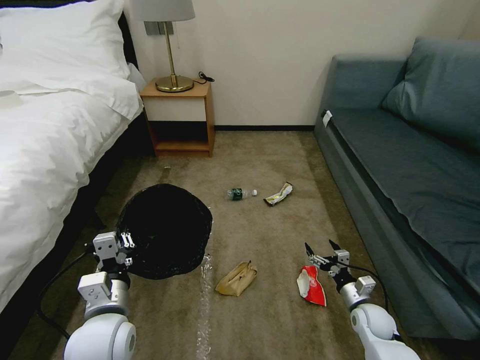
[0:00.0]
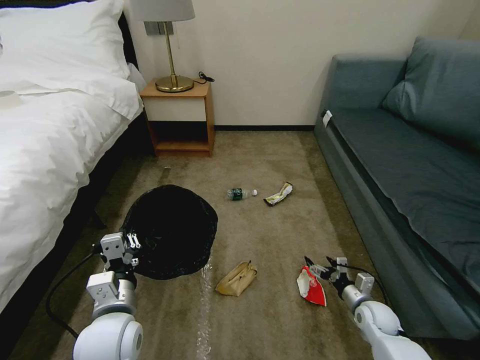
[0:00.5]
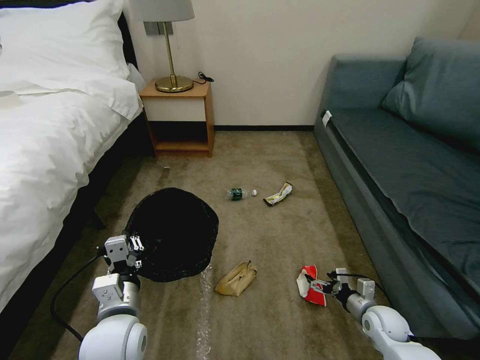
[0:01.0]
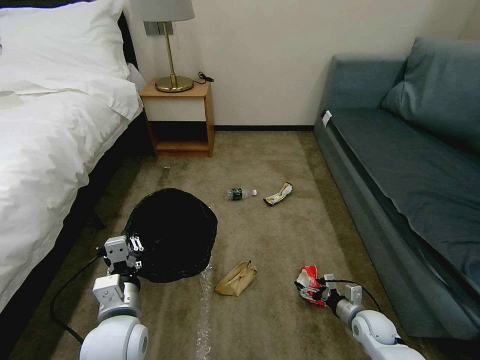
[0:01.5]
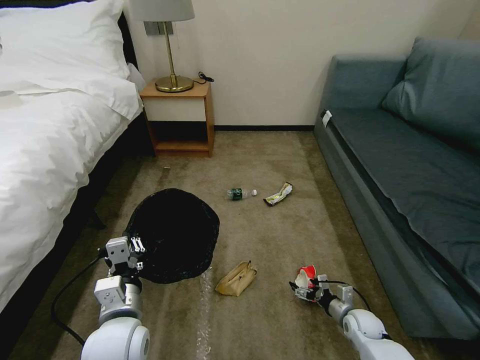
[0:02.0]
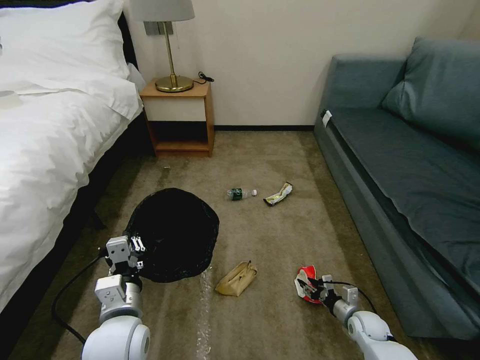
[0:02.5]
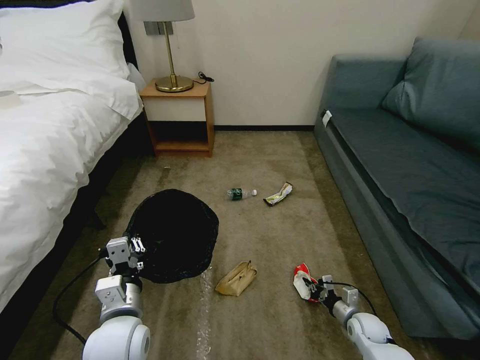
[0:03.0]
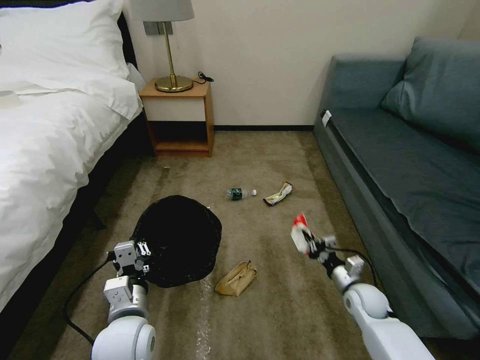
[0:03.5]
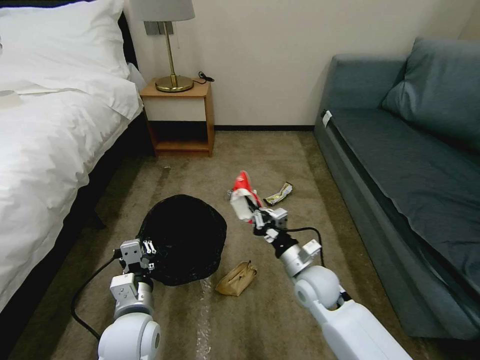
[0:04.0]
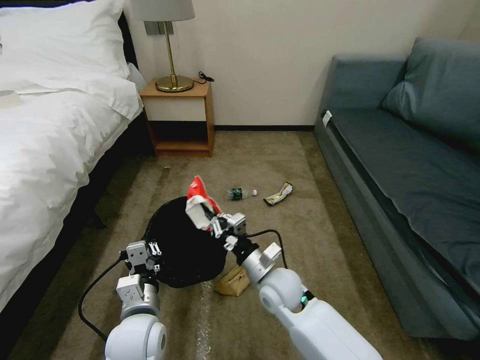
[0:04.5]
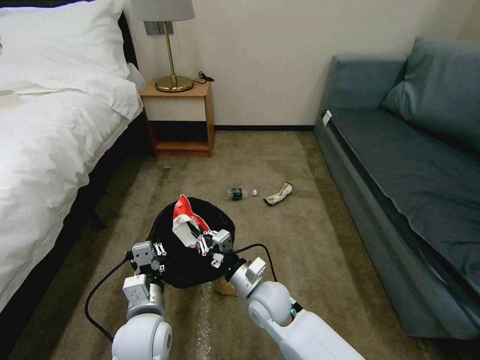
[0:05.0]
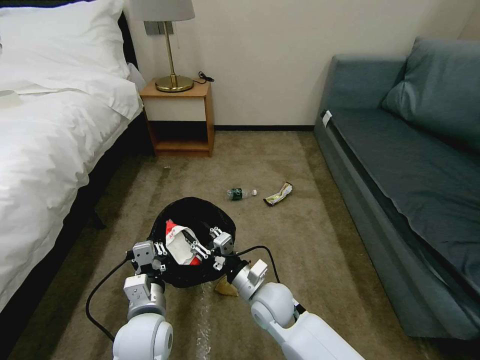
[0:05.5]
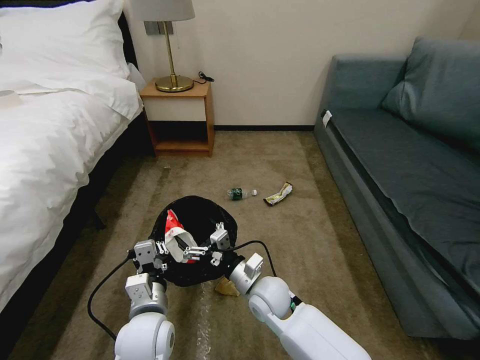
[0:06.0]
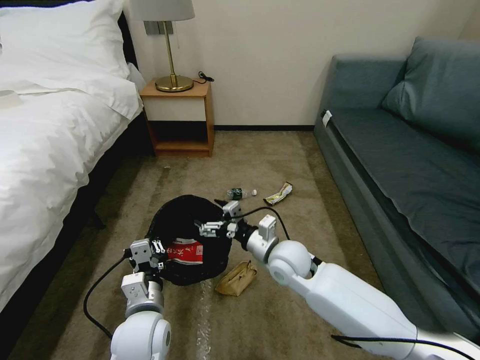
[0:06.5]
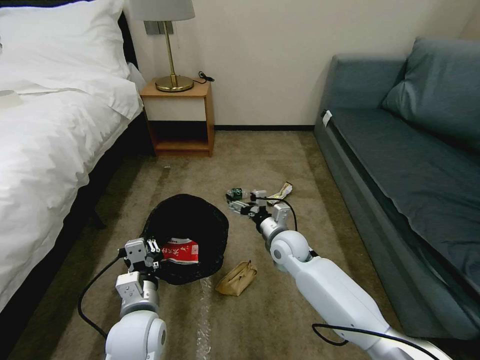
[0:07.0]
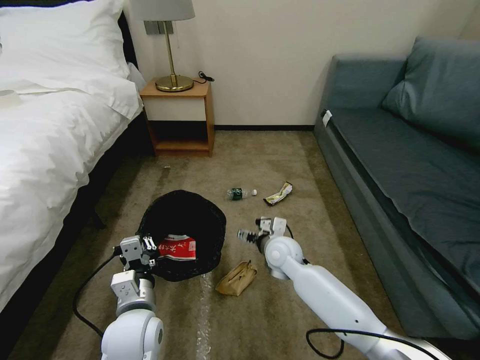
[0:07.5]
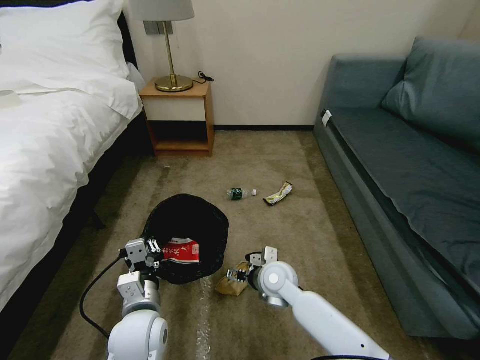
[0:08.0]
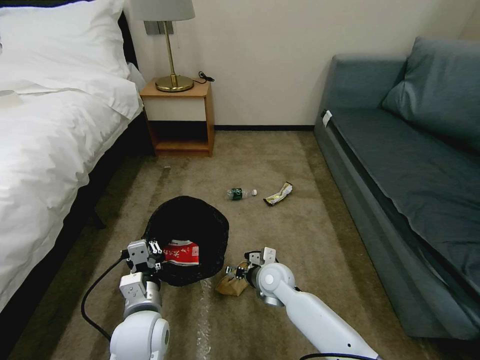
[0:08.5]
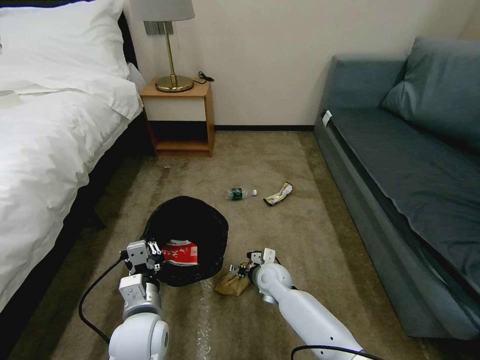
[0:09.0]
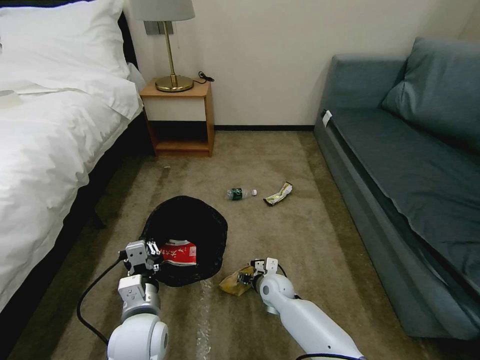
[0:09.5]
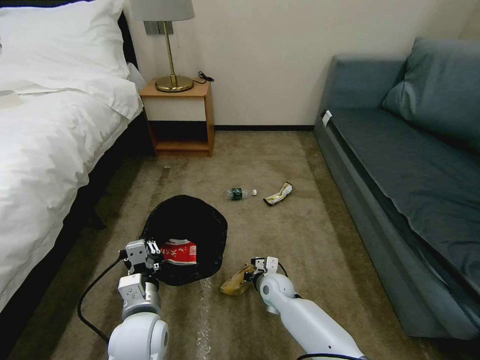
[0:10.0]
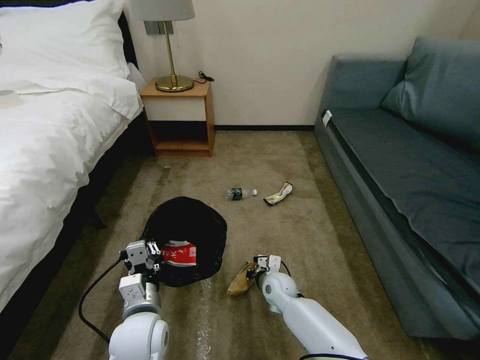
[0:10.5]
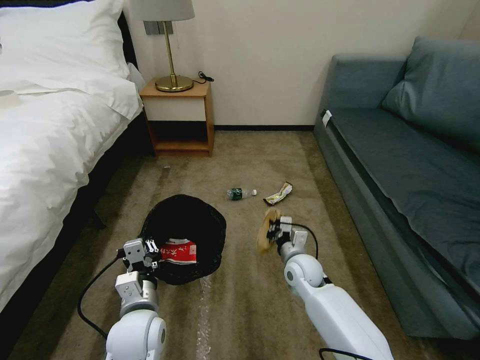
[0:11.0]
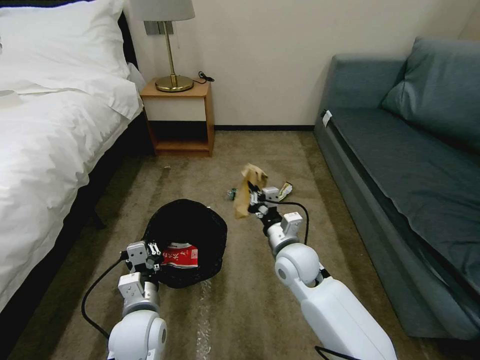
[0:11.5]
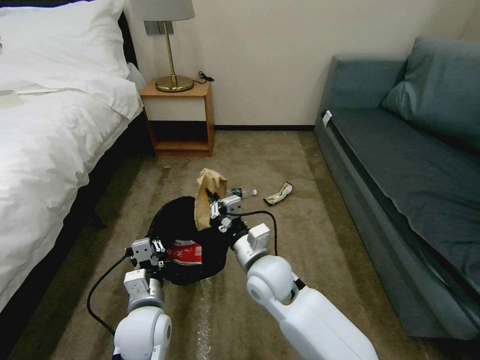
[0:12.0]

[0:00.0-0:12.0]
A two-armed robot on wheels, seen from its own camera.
Task of the whole recording: Pick up the trash bin, then pick up the garbage on the floor and place it into the trash bin.
0:00.0 to 0:02.0: The right gripper is displaced downward by some 5 cm.
0:02.0 to 0:04.0: The right gripper moves upward and to the left, approximately 25 cm, and closes.
0:04.0 to 0:06.0: The right gripper travels to the left by approximately 10 cm, and opens.
0:06.0 to 0:08.0: The right gripper shifts approximately 5 cm forward.
0:08.0 to 0:10.0: The right gripper moves downward, approximately 10 cm, and closes.
0:10.0 to 0:12.0: The right gripper goes approximately 20 cm upward.

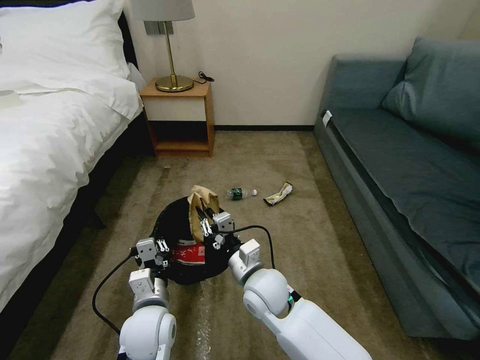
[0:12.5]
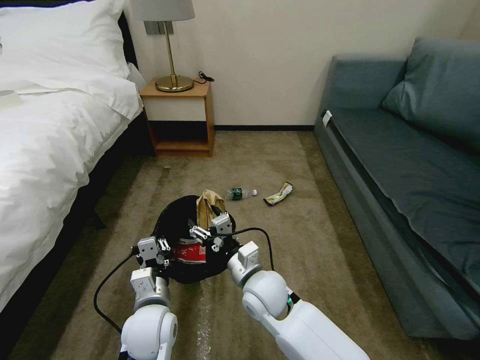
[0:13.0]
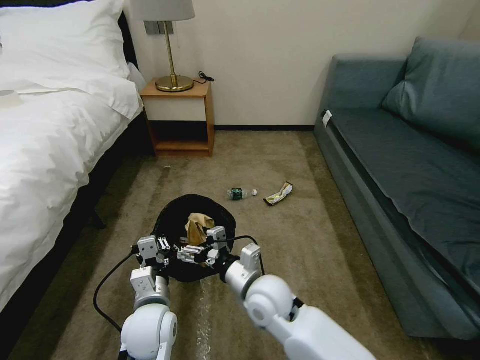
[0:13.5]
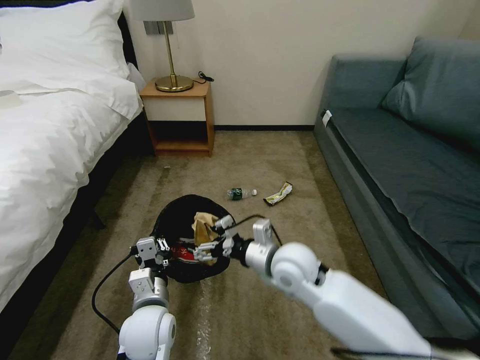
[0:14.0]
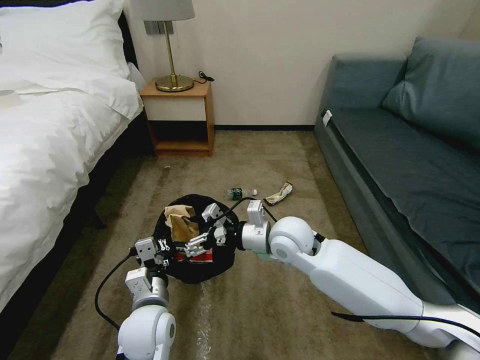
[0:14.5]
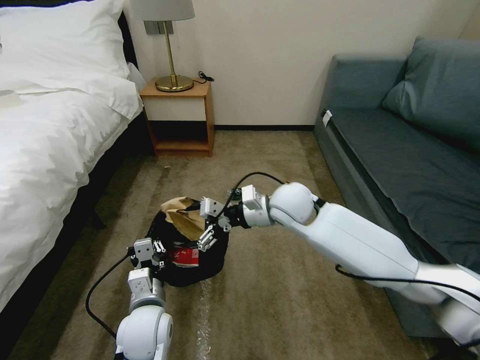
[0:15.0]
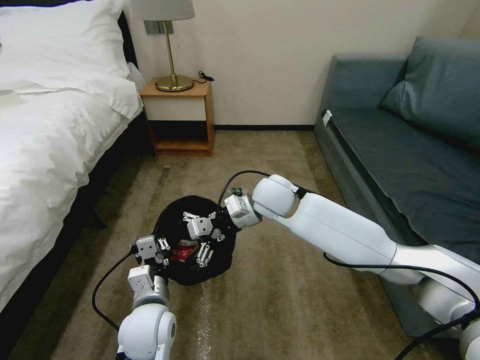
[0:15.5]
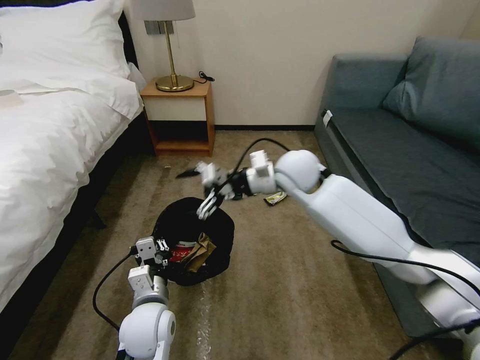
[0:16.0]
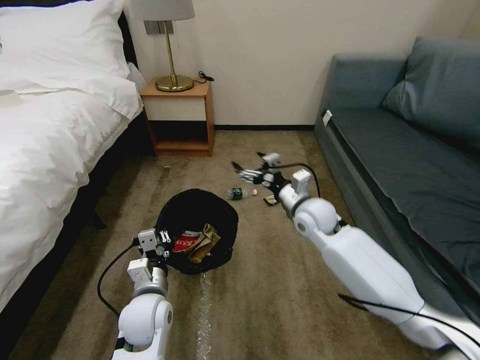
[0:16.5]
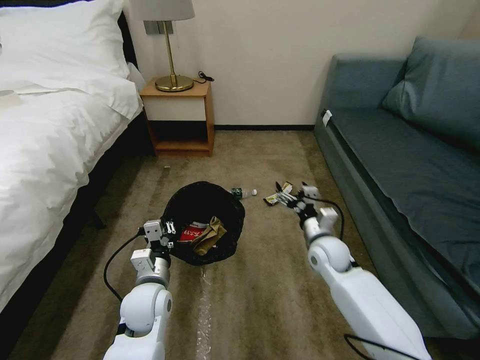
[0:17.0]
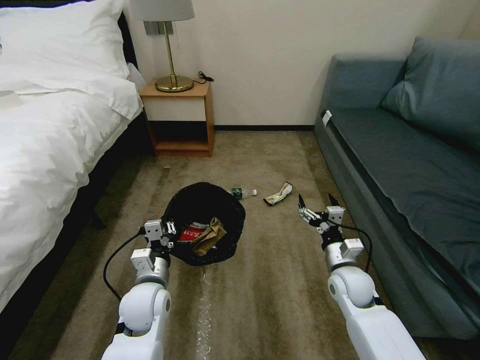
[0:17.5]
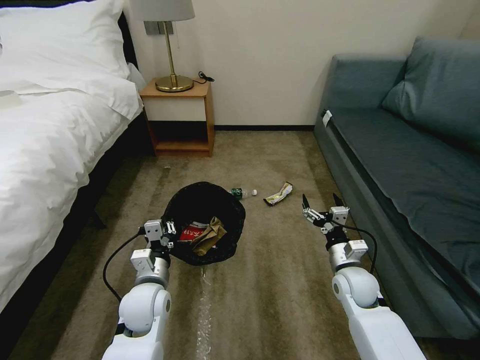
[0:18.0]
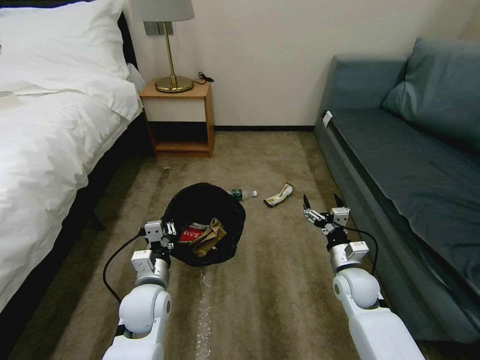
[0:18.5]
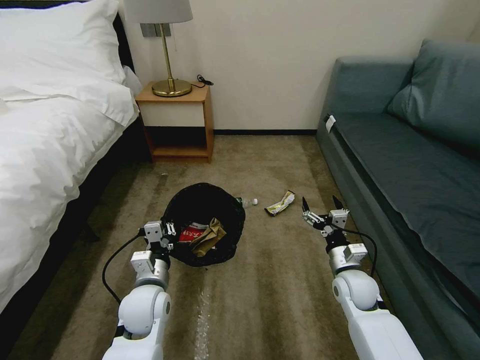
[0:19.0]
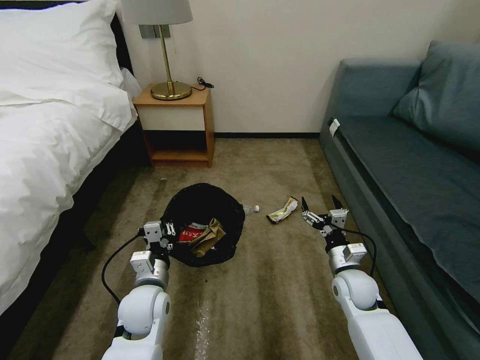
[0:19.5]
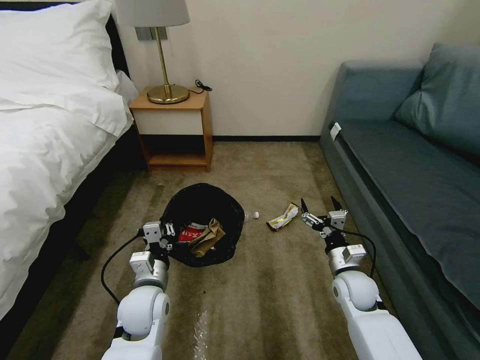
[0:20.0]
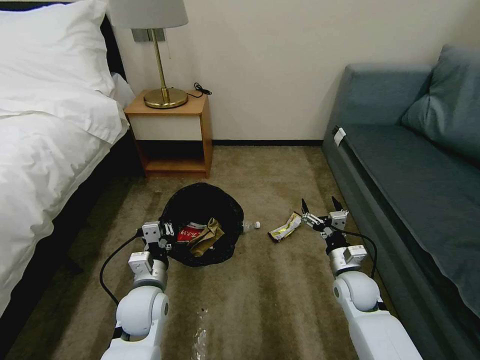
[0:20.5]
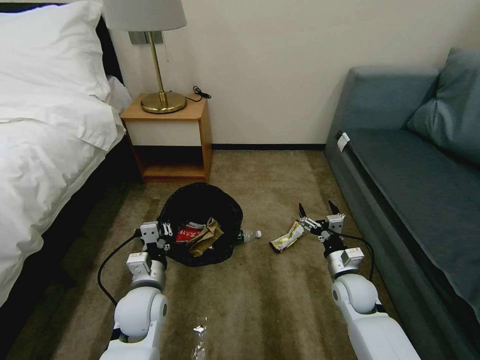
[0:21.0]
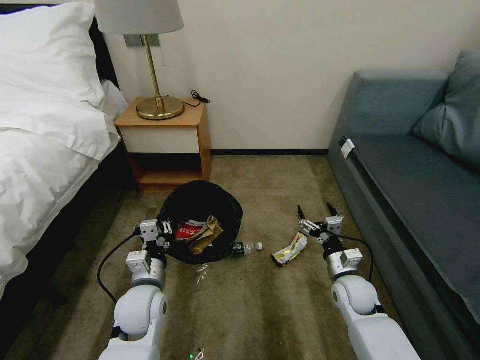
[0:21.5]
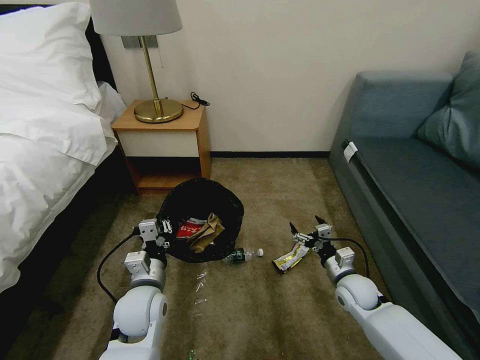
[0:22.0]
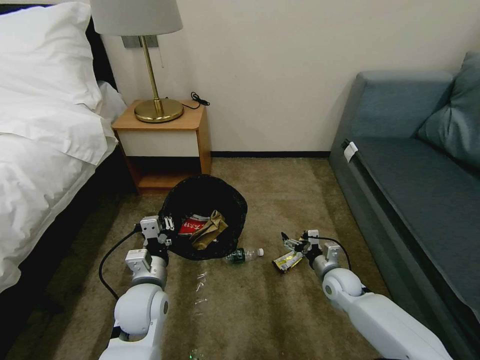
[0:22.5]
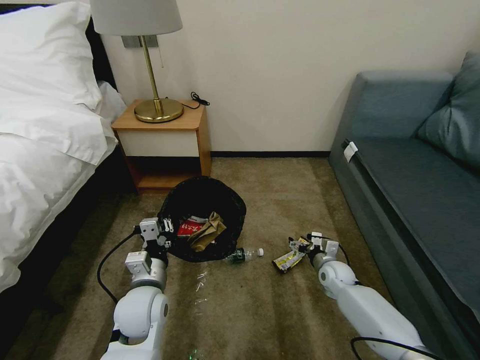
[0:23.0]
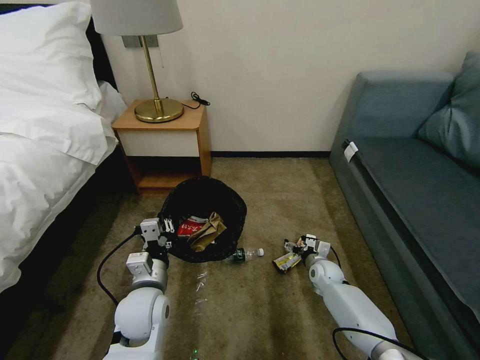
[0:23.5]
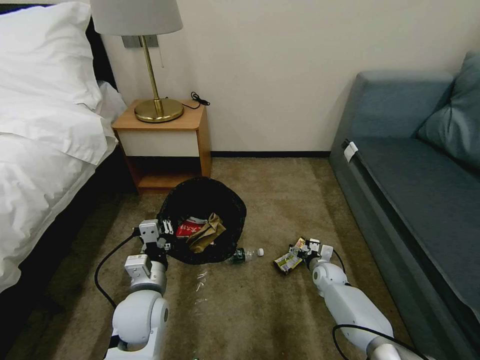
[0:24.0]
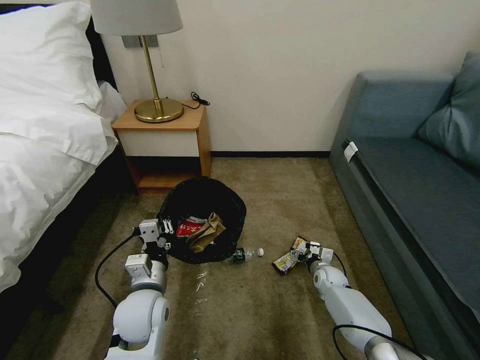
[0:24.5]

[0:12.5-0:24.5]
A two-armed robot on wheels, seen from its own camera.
Task of the whole recording: Pick up the trash bin, then pick up the garbage on the floor and place it into the trash bin.
0:12.5 to 0:14.5: The right gripper goes about 15 cm upward, forward and to the right, and opens.
0:14.5 to 0:16.5: The right gripper shifts roughly 10 cm forward and to the right.
0:16.5 to 0:18.5: The right gripper shifts about 20 cm downward, backward and to the right.
0:20.5 to 0:22.5: The right gripper goes roughly 5 cm downward.
0:22.5 to 0:24.5: The right gripper goes some 10 cm downward and forward.

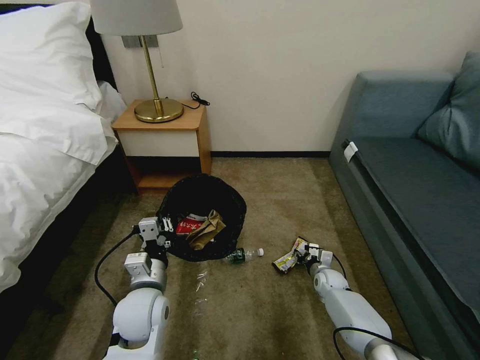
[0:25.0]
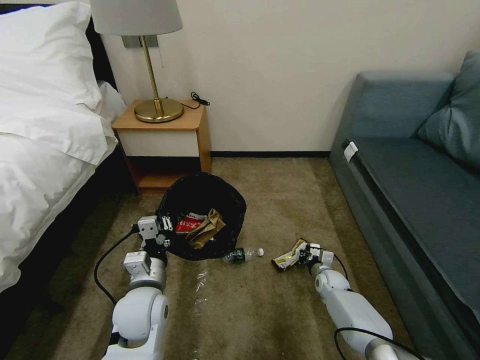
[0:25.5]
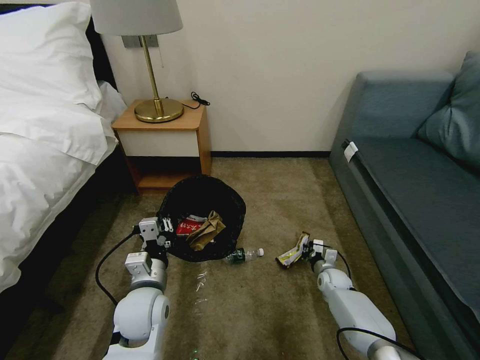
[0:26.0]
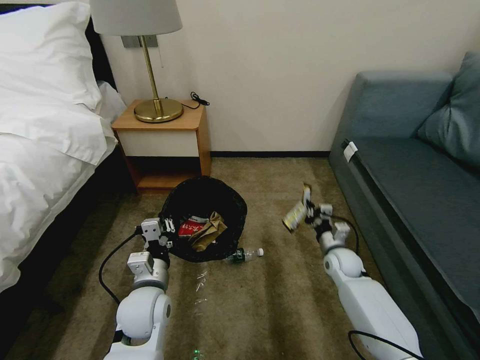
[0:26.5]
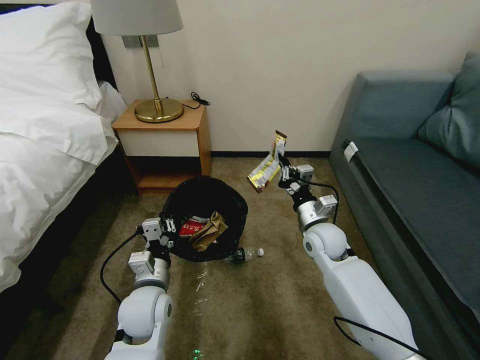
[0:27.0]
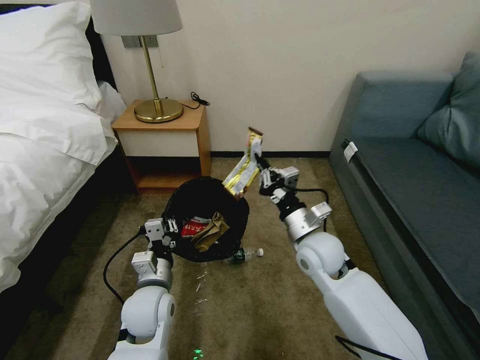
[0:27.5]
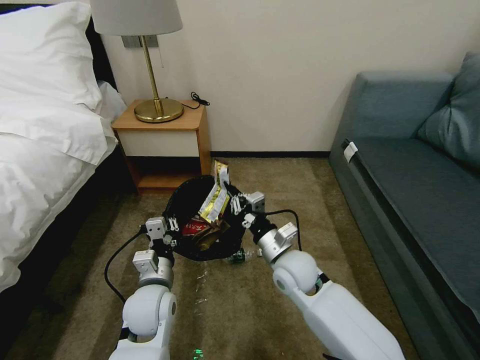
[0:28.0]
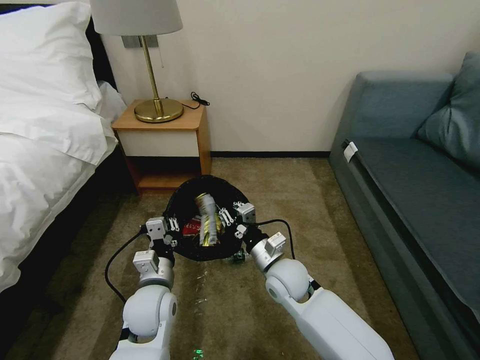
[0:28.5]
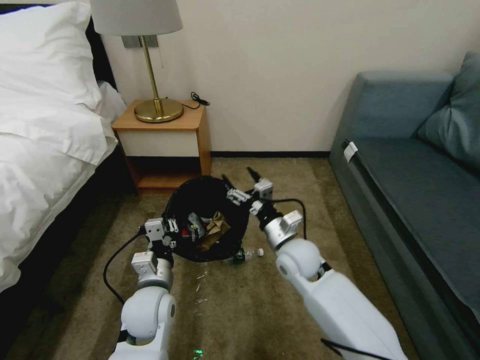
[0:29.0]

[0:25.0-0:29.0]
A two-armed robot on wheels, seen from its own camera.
Task of the whole recording: Pick up the trash bin, then pick up the garbage on the floor and place it into the trash bin.
0:25.0 to 0:27.0: The right gripper goes some 25 cm upward, and closes its fingers.
0:27.0 to 0:29.0: The right gripper goes approximately 10 cm to the left and backward, and opens up.
